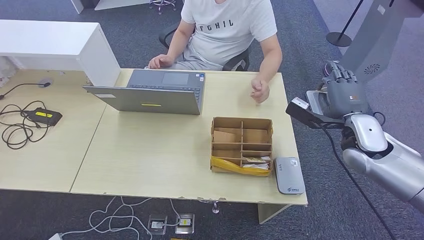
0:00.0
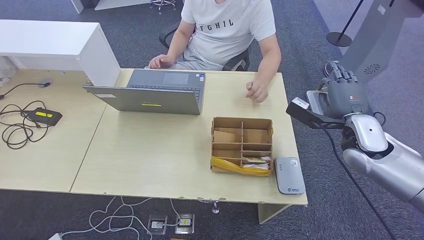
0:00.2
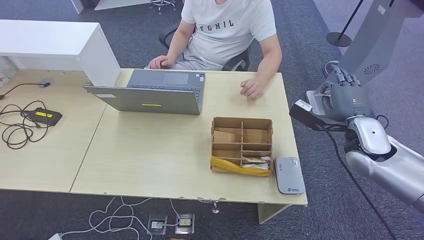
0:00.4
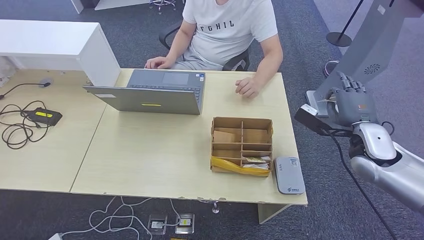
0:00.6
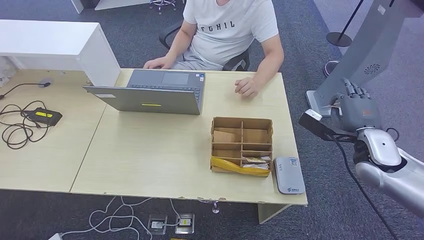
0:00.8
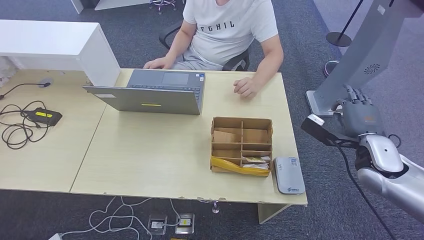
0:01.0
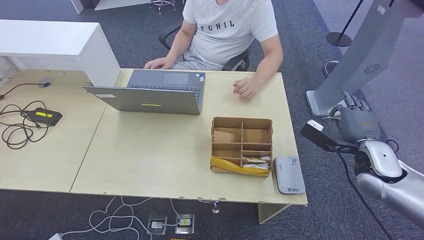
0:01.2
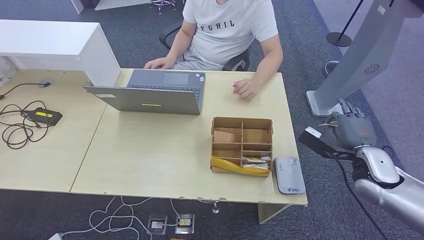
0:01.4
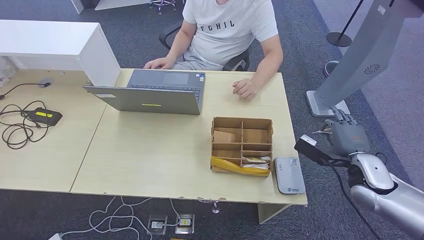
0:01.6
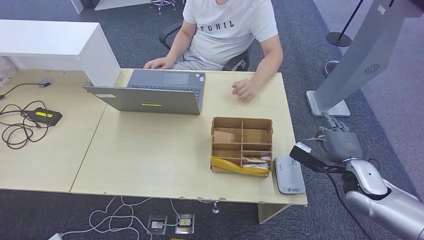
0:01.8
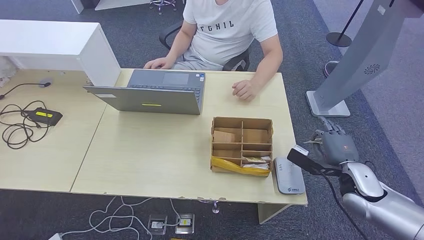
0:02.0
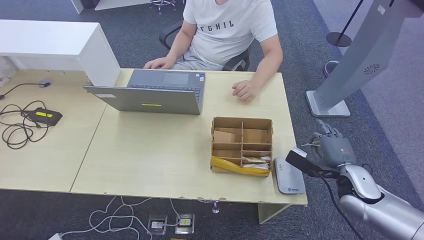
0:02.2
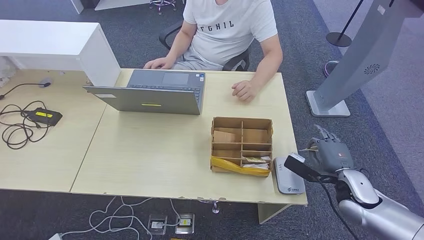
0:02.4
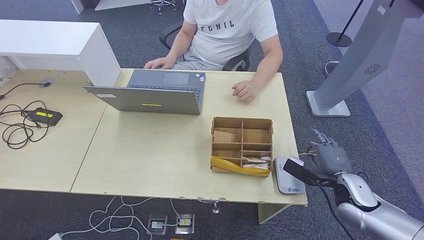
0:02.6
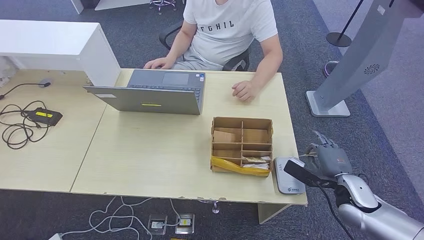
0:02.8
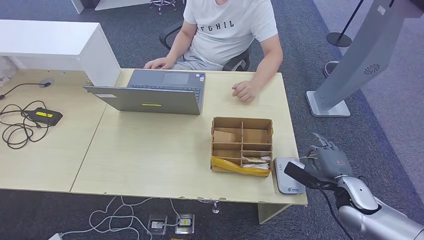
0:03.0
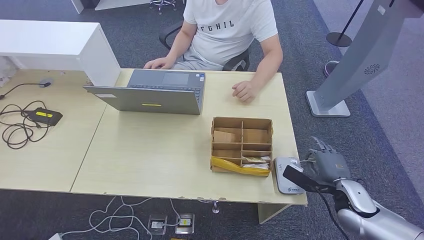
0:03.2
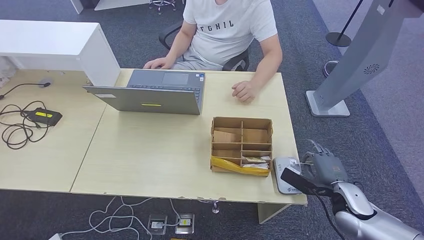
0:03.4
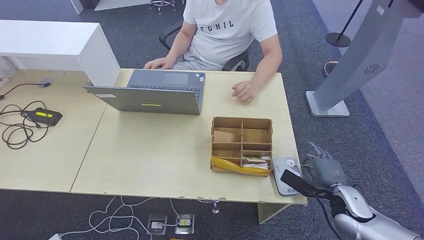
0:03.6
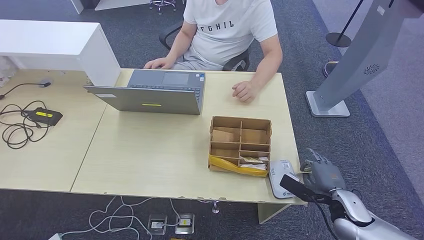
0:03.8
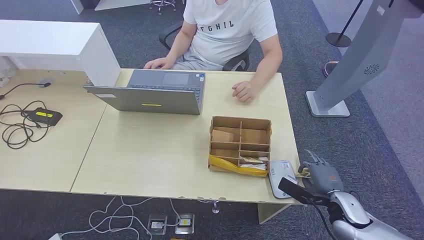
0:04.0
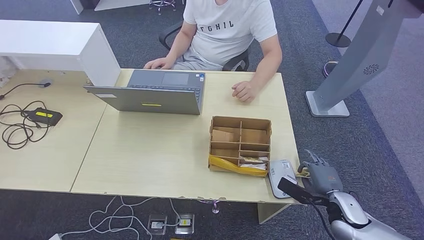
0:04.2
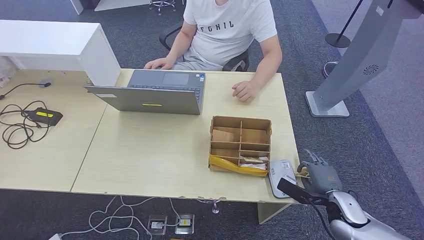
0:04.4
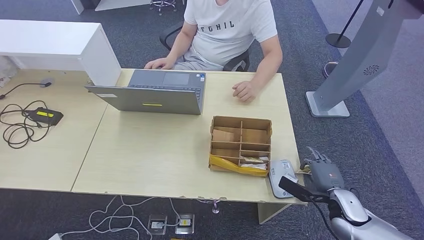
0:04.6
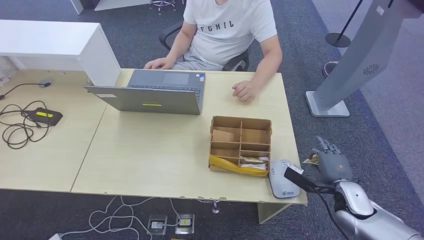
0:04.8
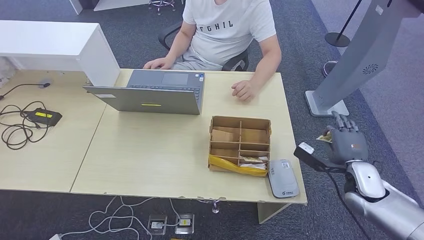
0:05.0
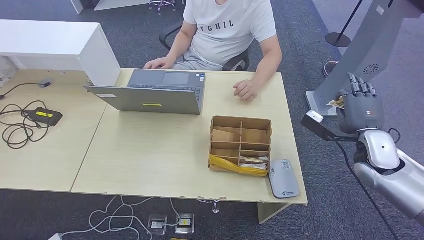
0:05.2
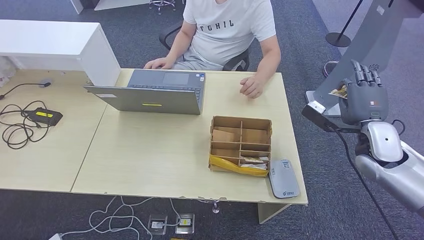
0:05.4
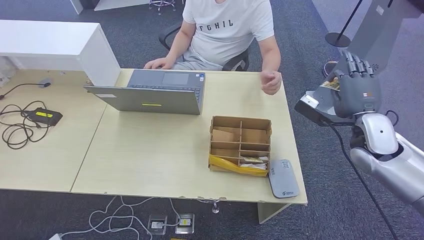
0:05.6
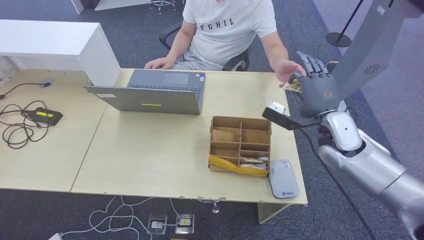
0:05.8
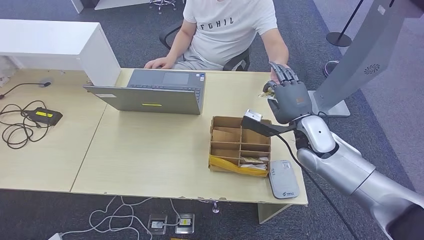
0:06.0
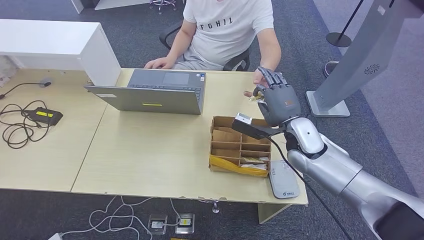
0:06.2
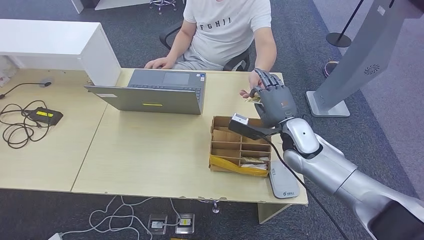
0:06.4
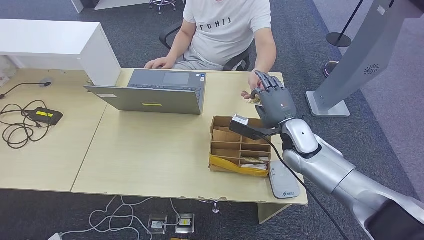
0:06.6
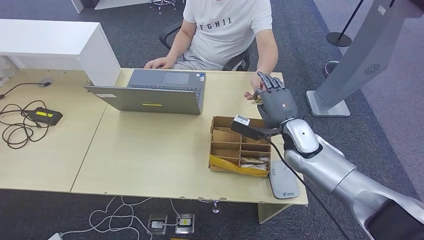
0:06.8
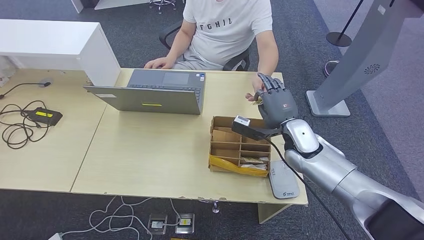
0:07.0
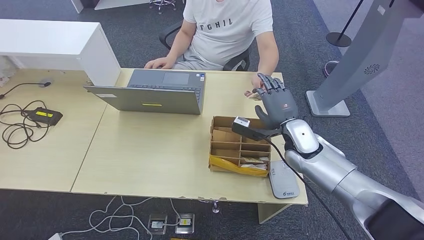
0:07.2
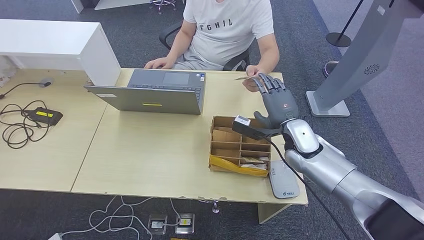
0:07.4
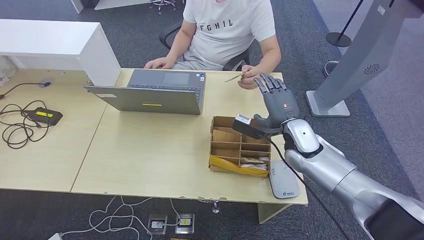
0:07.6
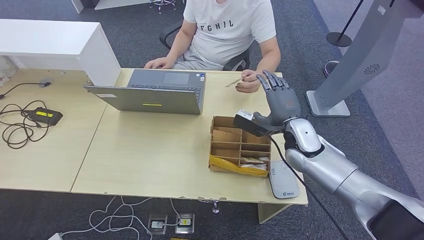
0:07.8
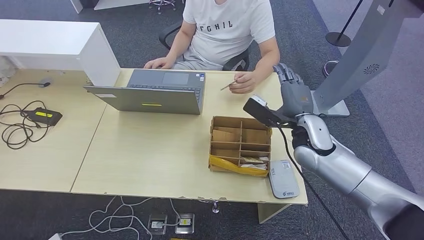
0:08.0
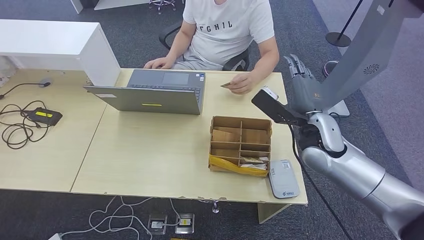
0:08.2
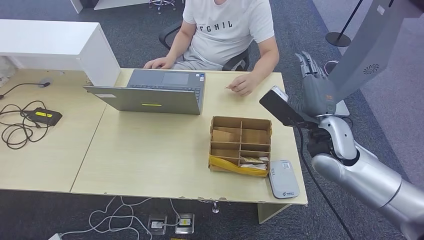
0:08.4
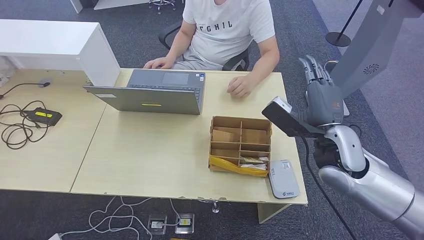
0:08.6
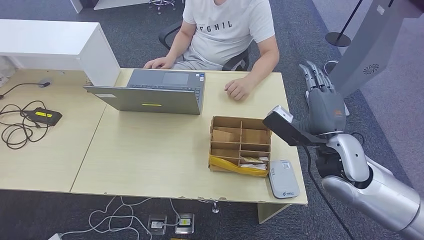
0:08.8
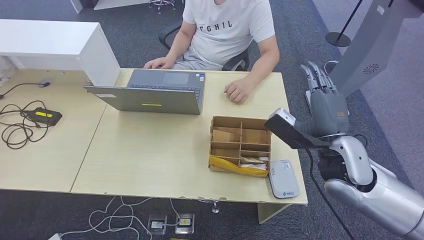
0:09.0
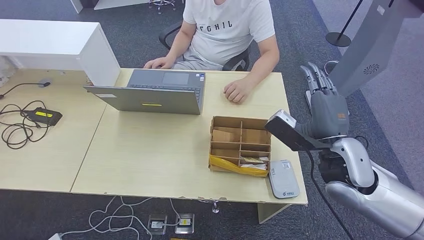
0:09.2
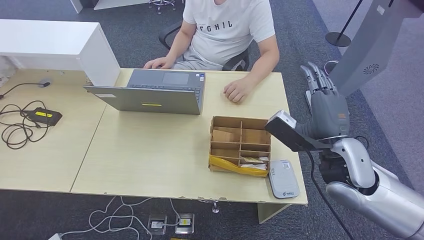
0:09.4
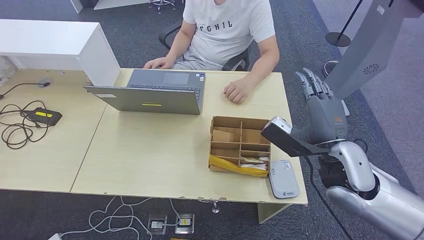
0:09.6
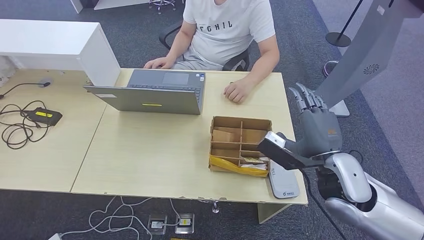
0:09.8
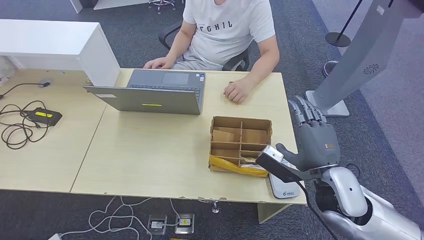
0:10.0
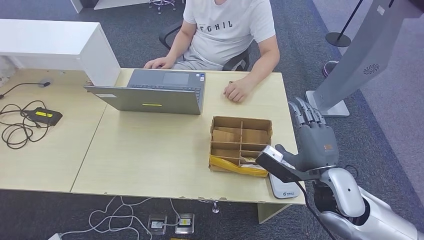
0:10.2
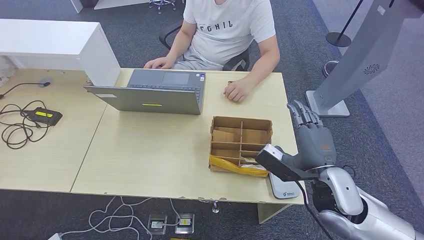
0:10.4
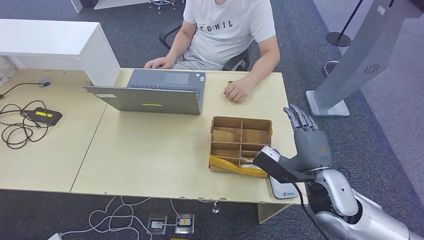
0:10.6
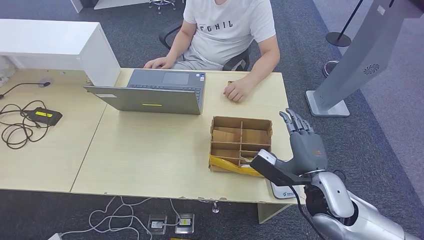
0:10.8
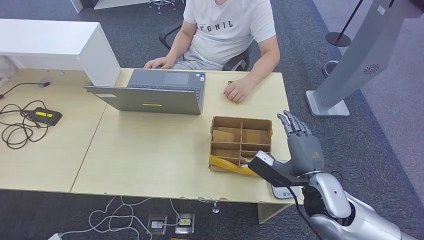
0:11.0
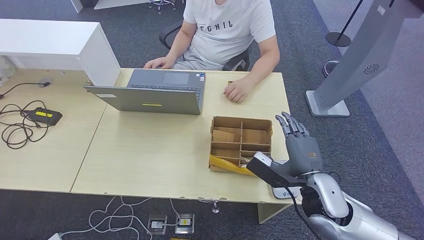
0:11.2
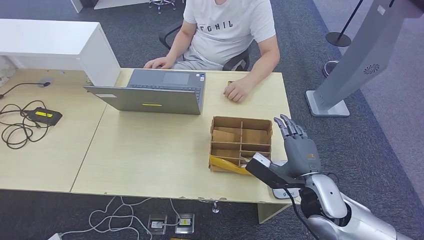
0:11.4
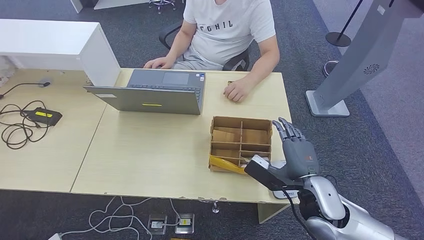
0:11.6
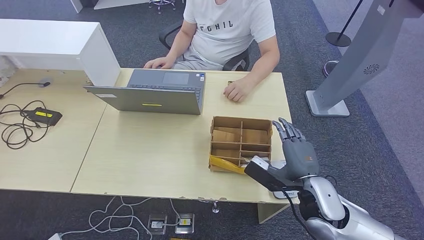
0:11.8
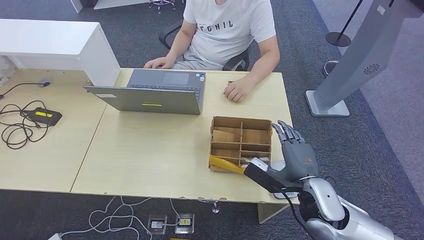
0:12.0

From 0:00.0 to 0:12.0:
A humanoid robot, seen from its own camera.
Step, from 0:01.4 to 0:03.8: Place the ID card on the card reader.
Step, from 0:04.6 to 0:08.2: Hand the ID card to the person.
From 0:00.0 to 0:01.6: The right hand shifts some 10 cm downward and backward.
From 0:01.6 to 0:03.0: The right hand moves downward, some 5 cm.
From 0:03.0 to 0:04.4: The right hand moves approximately 5 cm.
From 0:04.4 to 0:06.0: The right hand moves upward, forward and to the left, some 25 cm.
From 0:06.0 to 0:07.6: The hands move only a little.
From 0:07.6 to 0:09.0: The right hand is displaced backward and upward by about 15 cm.
From 0:09.0 to 0:10.4: The right hand travels downward by roughly 5 cm.
From 0:10.4 to 0:12.0: The hands stay close to where they were, moving slightly.

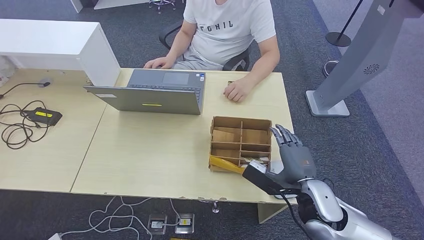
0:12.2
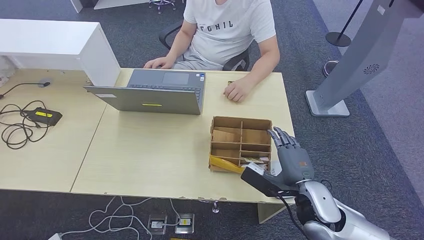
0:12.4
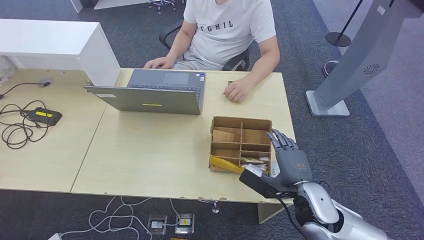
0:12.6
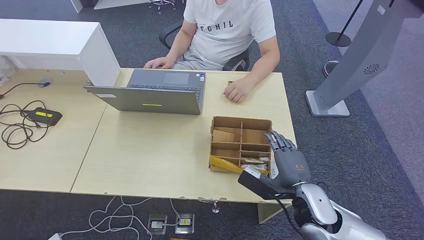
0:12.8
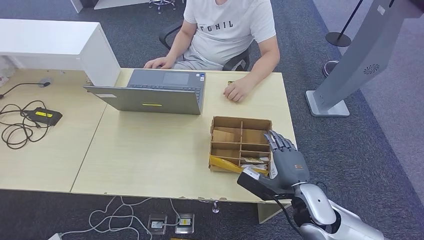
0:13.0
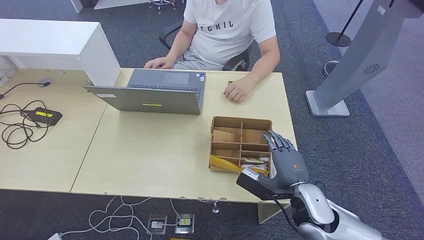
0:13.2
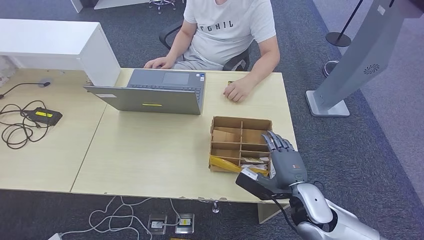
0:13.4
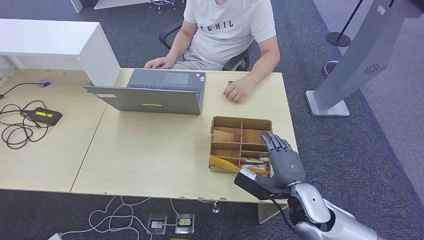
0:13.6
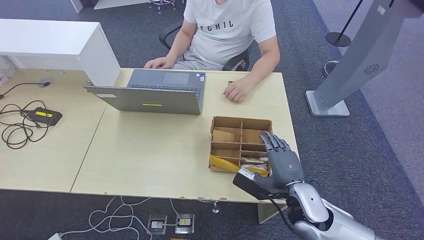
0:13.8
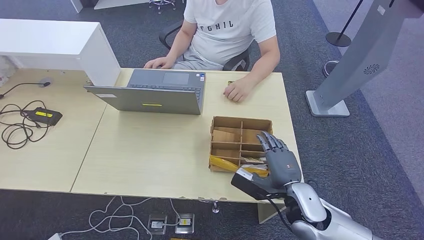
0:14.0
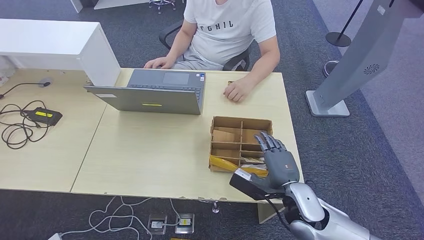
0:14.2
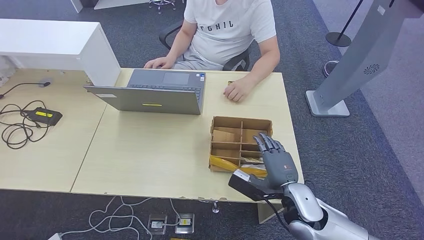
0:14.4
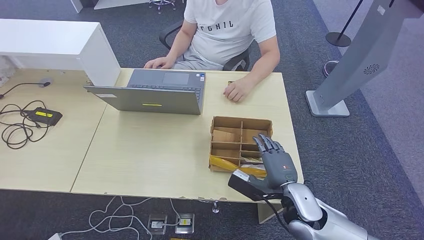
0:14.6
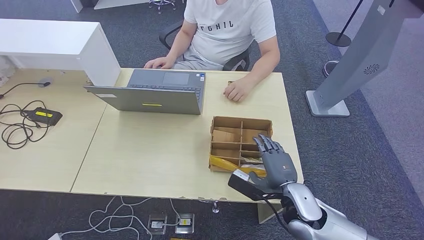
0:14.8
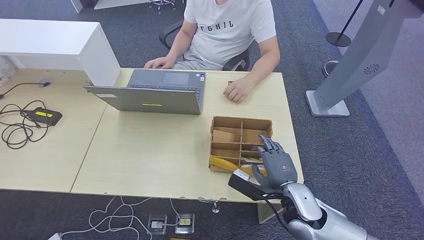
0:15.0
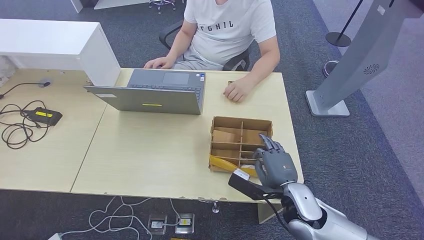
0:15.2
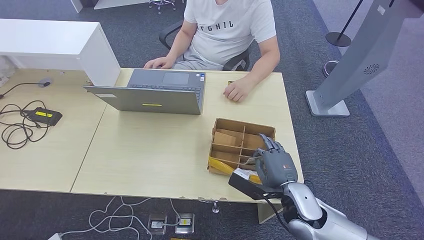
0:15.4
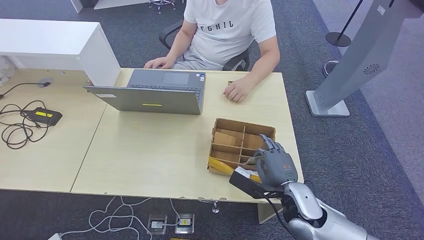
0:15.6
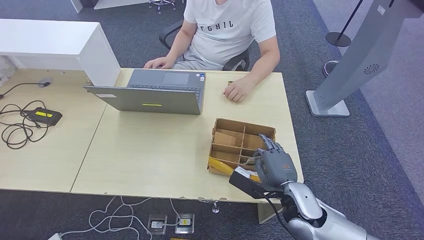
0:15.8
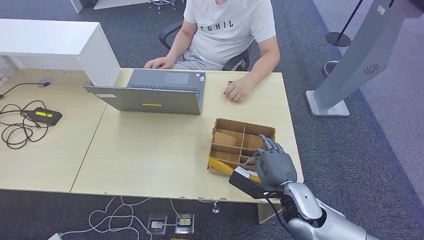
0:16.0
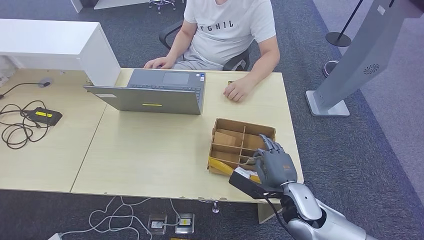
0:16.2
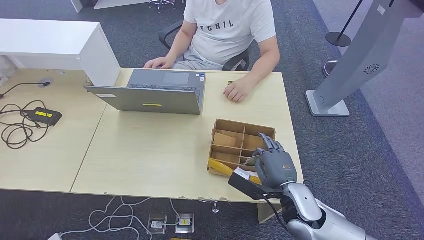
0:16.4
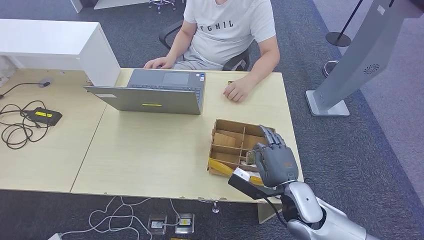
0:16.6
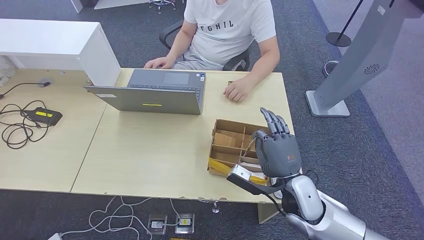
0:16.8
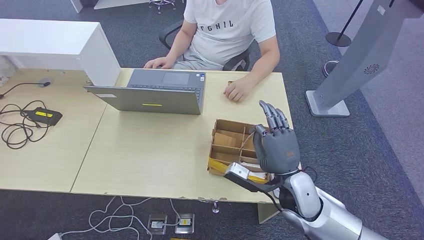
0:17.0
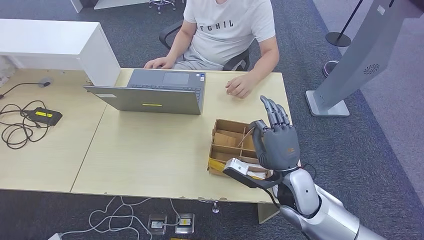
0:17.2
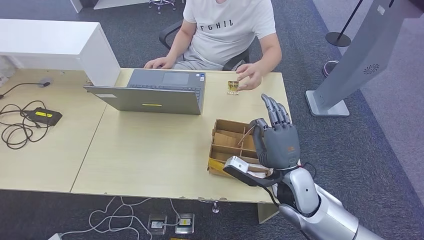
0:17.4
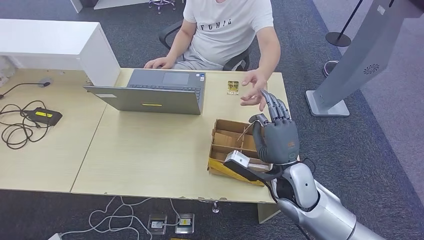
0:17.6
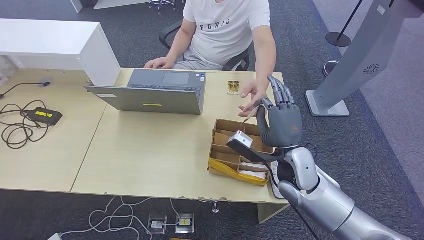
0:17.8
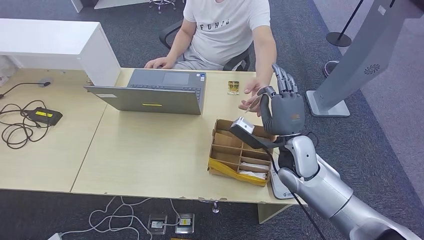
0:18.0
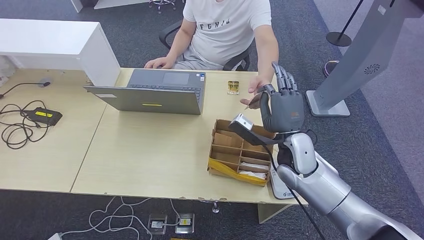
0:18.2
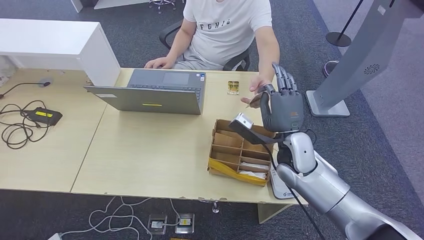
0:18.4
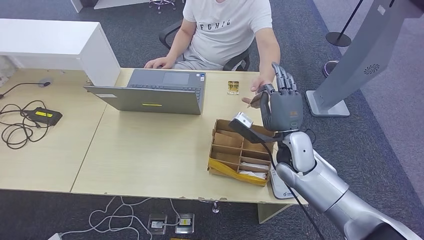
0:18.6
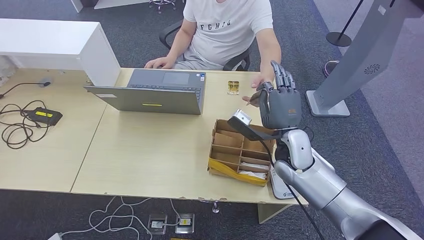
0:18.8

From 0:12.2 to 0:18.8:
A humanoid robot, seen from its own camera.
Step, from 0:12.2 to 0:16.8: Pick up the room key from the key card box.
From 0:12.2 to 0:13.8: The hands make only small movements.
From 0:13.8 to 0:15.4: The two hands keep their place.
From 0:15.4 to 0:17.2: The right hand shifts by some 5 cm.
From 0:17.2 to 0:18.8: The right hand is displaced forward by some 10 cm.
